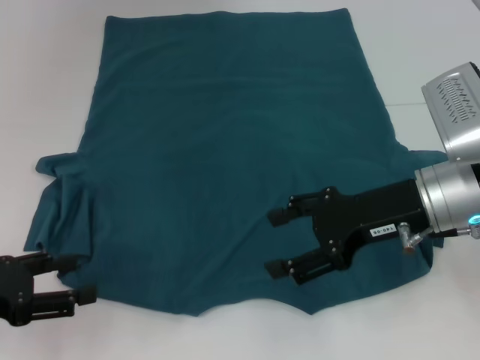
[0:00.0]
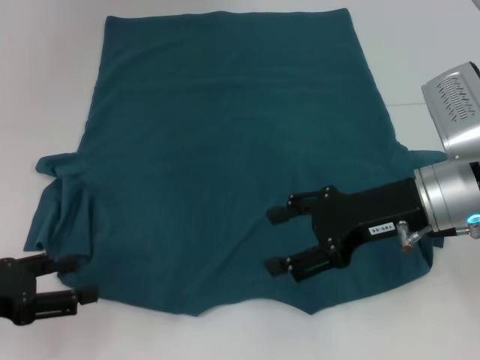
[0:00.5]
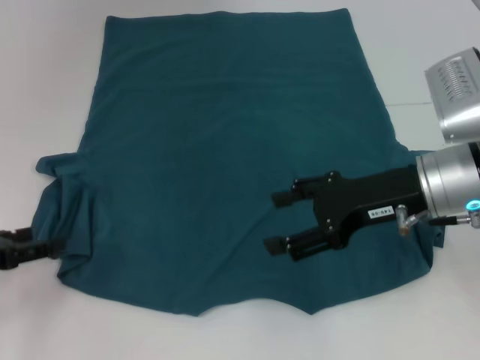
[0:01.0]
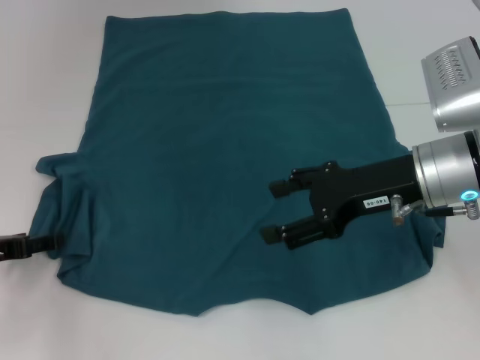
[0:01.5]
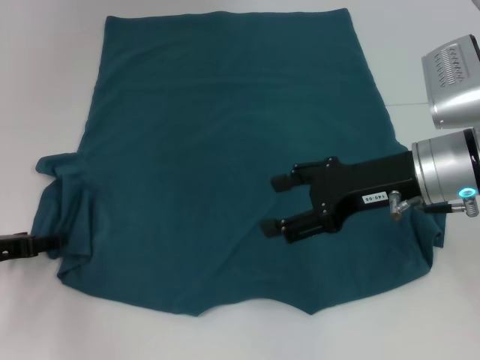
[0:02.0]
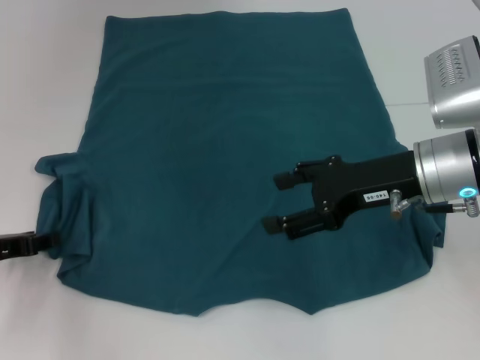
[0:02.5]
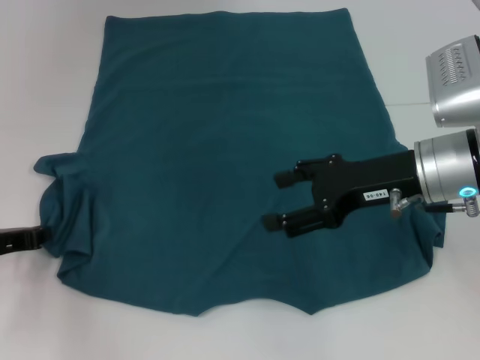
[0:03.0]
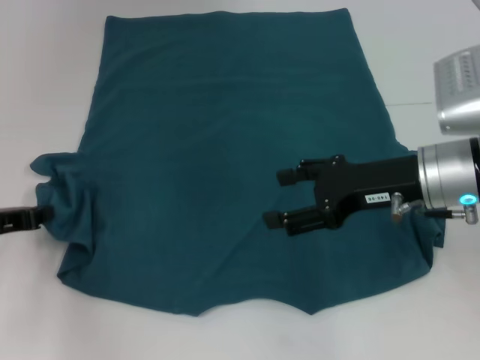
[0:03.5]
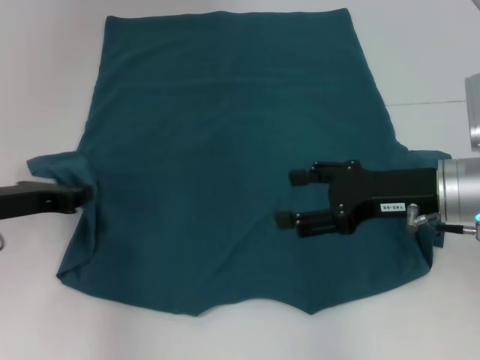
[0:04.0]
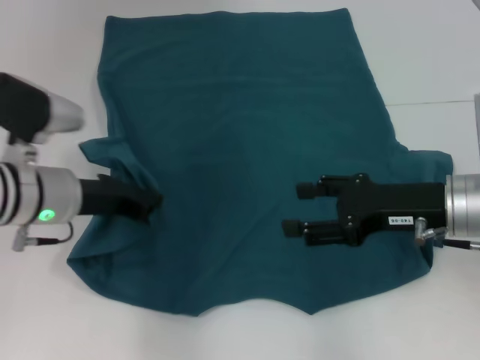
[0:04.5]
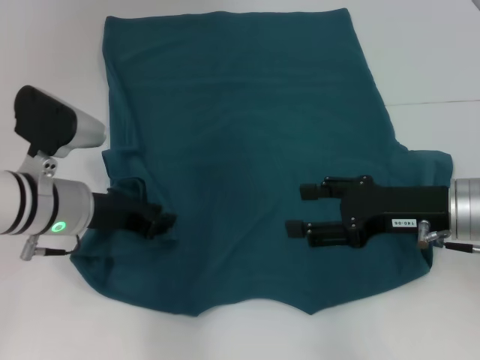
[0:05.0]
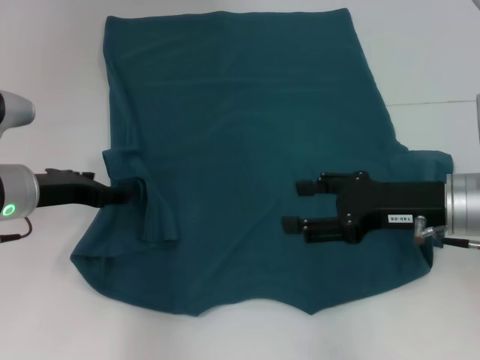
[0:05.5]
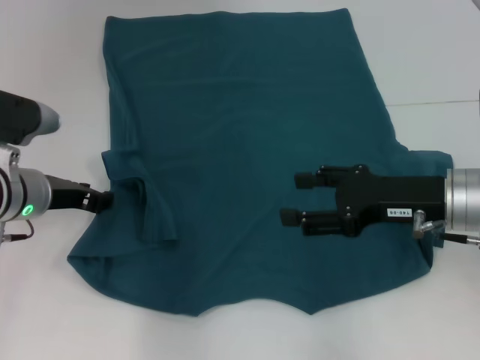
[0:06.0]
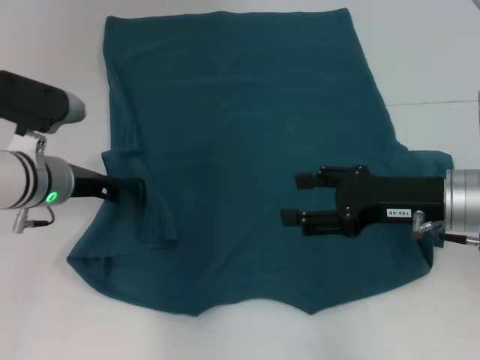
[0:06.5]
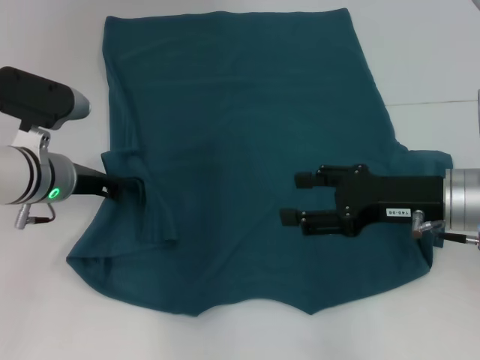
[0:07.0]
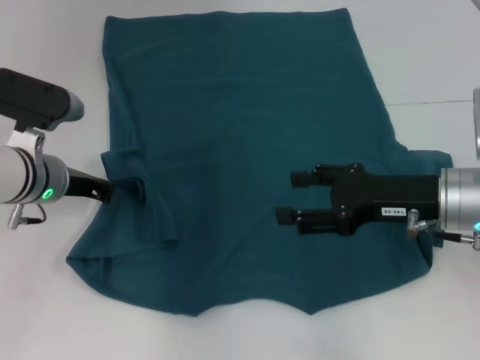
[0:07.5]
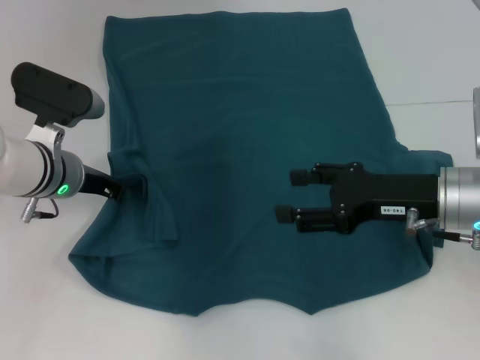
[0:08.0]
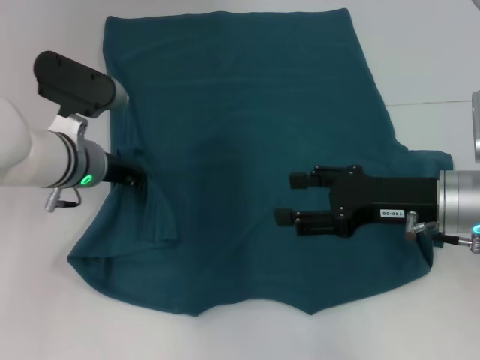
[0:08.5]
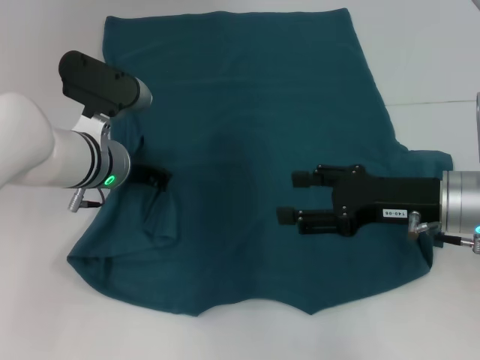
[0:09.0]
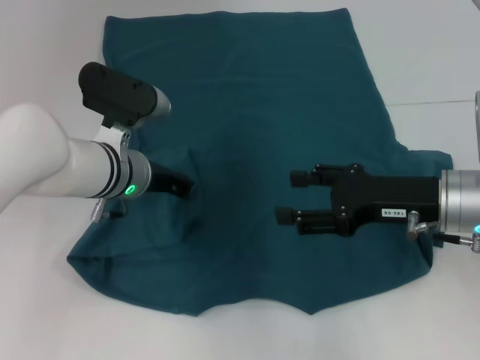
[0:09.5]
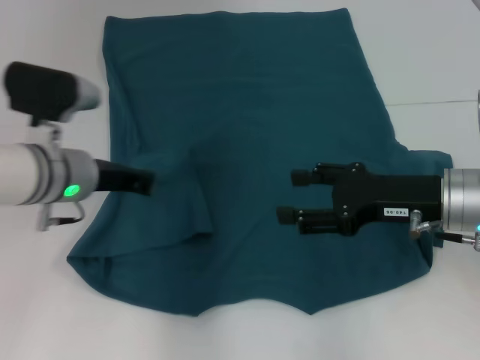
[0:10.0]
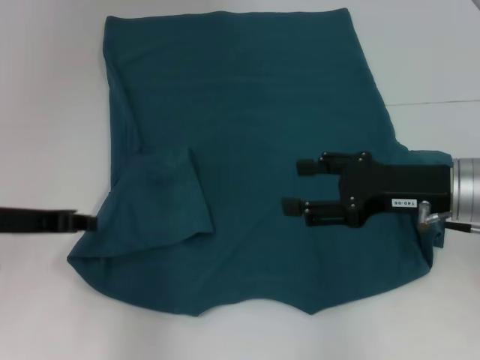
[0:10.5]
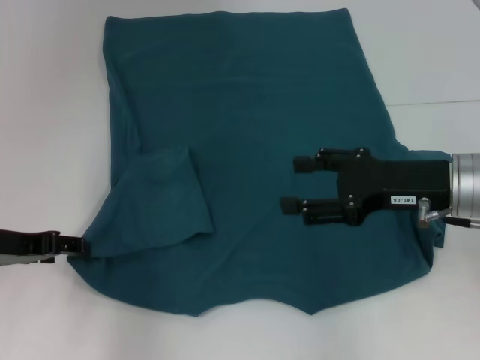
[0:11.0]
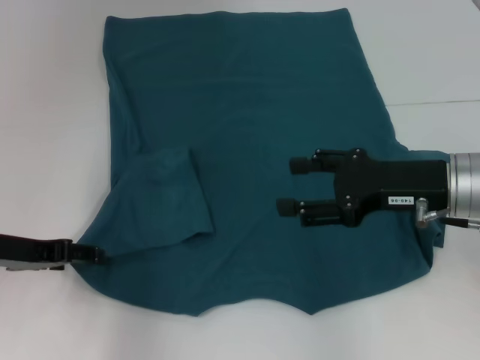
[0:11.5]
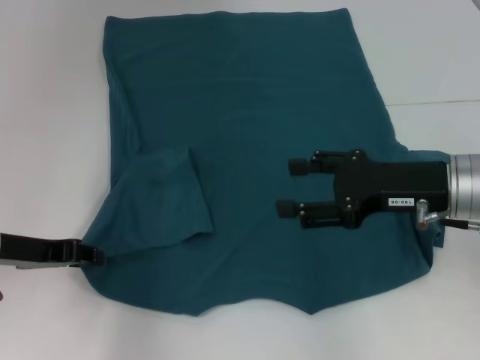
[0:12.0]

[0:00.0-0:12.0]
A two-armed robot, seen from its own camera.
Step, 0:00.0 to 0:09.5: Fold the bottom left sleeve with your left hand.
0:00.0 to 0:02.0: The left gripper travels forward by approximately 5 cm.
0:02.0 to 0:04.0: The left gripper is displaced upward by roughly 5 cm, and closes up.
0:04.0 to 0:06.0: The left gripper ends up some 5 cm from where it was, and opens its fingers.
0:06.0 to 0:08.0: The left gripper closes up.
0:10.0 to 0:12.0: The left gripper travels to the left and backward by roughly 10 cm, and opens its fingers.

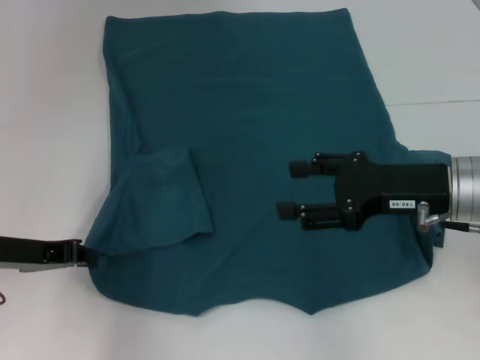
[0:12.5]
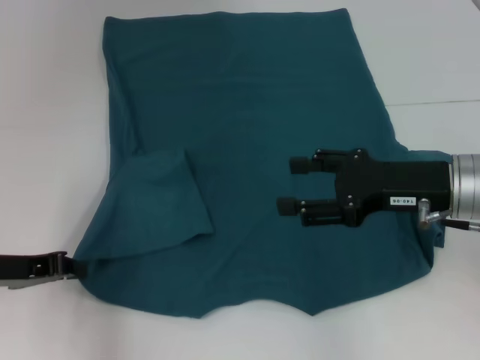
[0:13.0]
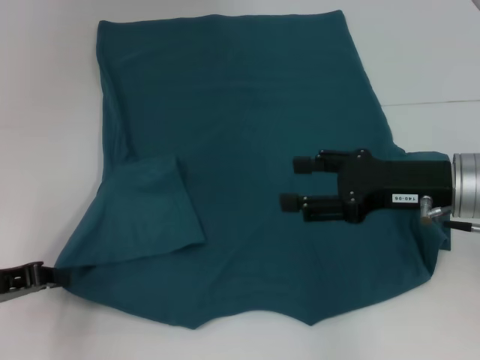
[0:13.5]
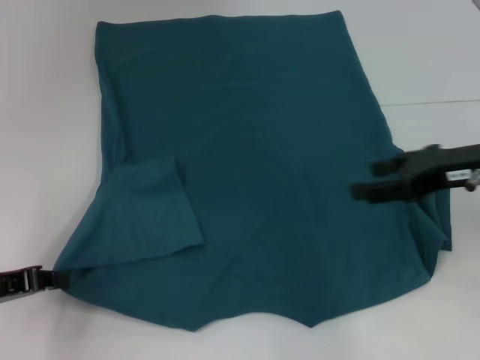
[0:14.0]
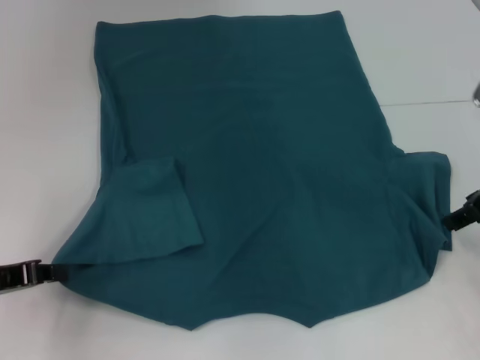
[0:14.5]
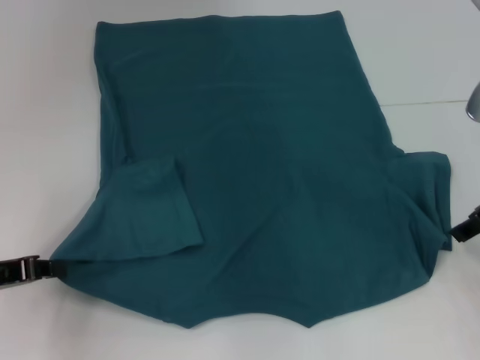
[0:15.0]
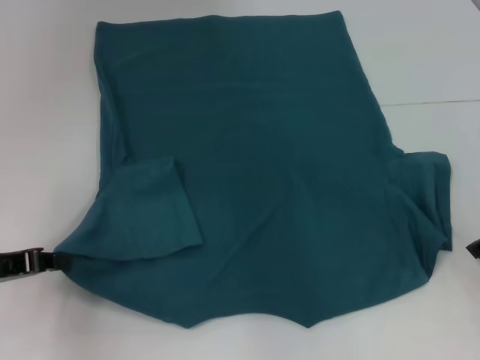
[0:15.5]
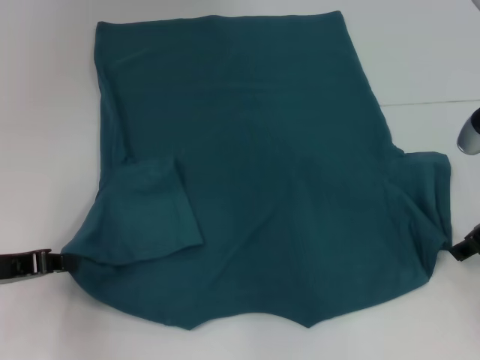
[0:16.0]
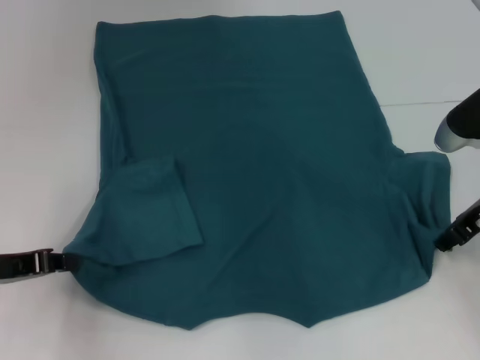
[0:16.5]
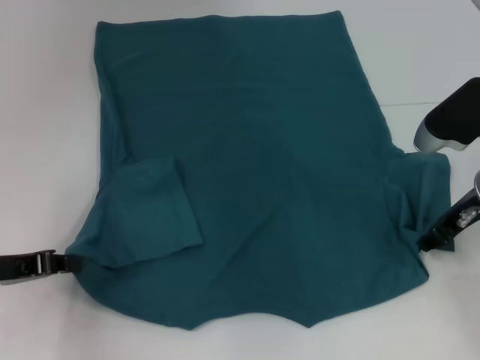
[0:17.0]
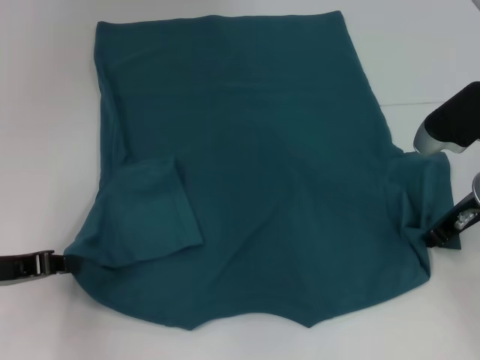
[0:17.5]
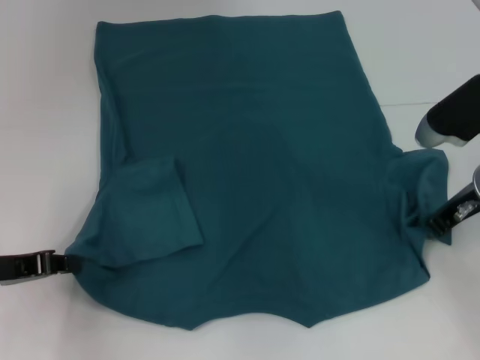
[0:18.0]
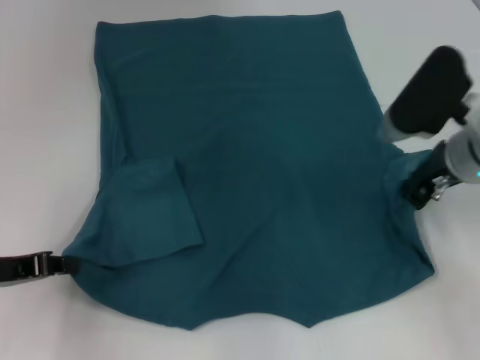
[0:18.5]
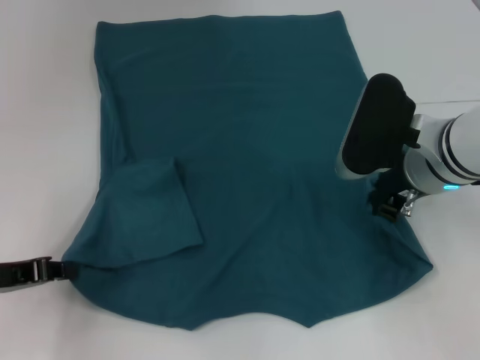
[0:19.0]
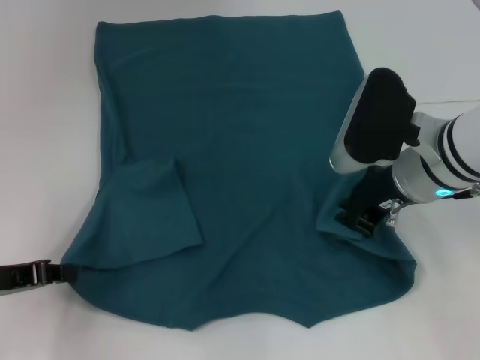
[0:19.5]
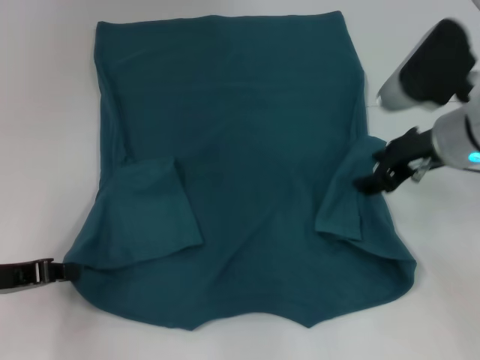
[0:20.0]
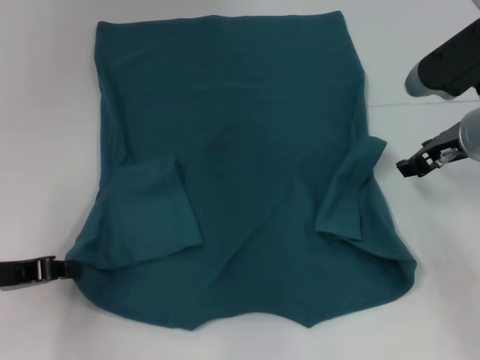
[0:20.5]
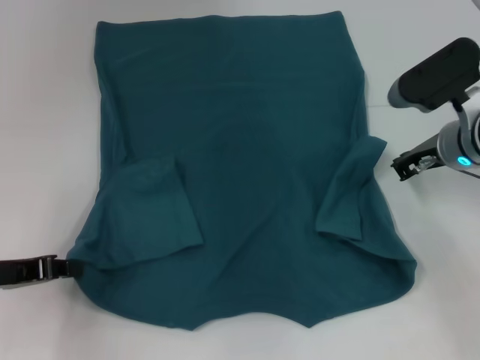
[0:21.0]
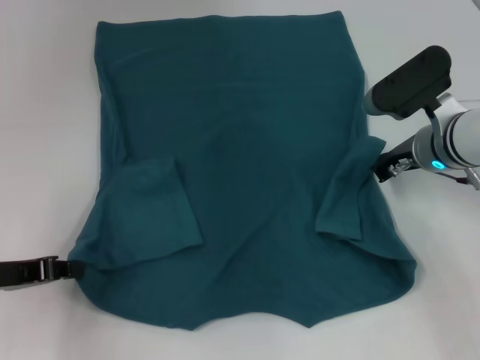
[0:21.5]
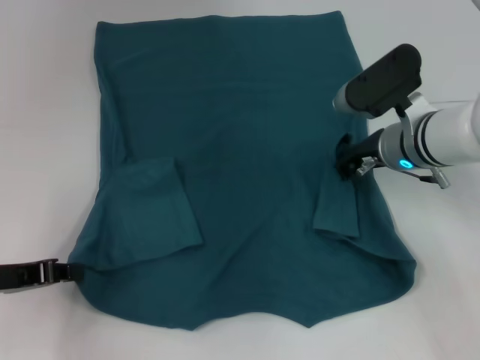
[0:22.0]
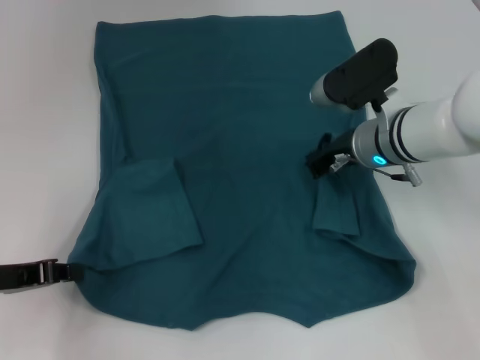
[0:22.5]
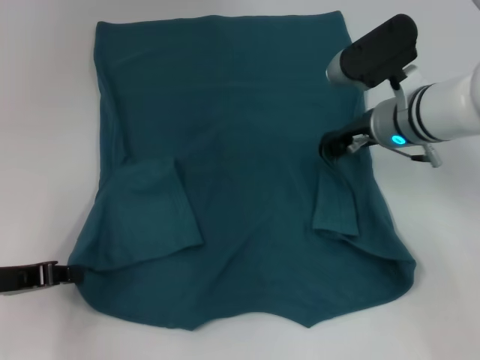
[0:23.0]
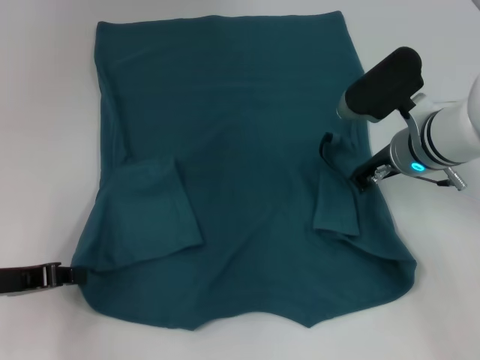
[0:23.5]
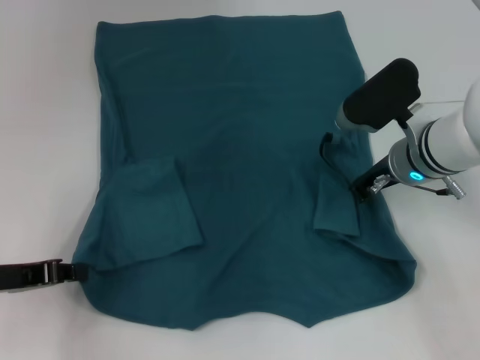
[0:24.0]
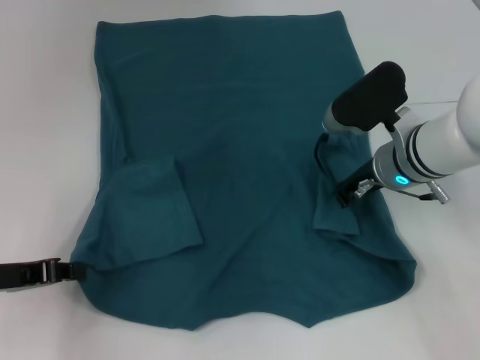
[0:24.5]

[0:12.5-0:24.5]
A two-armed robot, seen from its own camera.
0:12.5 to 0:14.5: The right gripper shifts some 5 cm to the right; the left gripper changes place by about 5 cm.
0:14.5 to 0:16.5: The right gripper is displaced downward by about 5 cm.
0:16.5 to 0:18.5: The right gripper is displaced to the left by about 5 cm, and closes.
0:18.5 to 0:20.5: The right gripper goes to the left and returns, roughly 5 cm each way, and opens up.
0:20.5 to 0:22.5: The right gripper goes about 10 cm to the left, and closes up.
0:22.5 to 0:24.5: There are only small adjustments of the grippers.

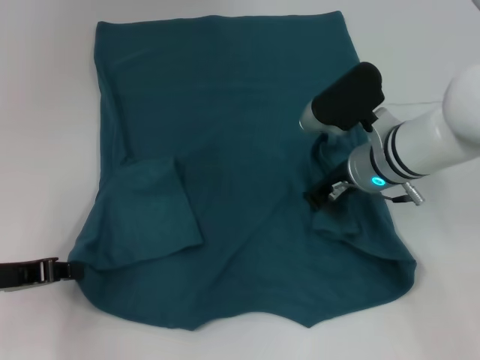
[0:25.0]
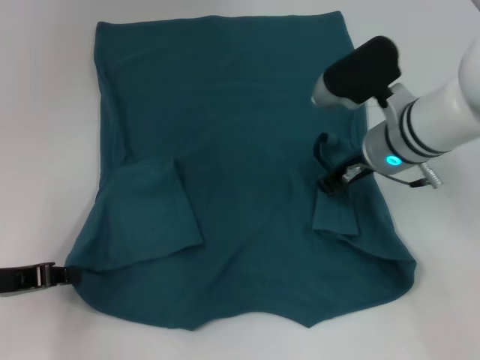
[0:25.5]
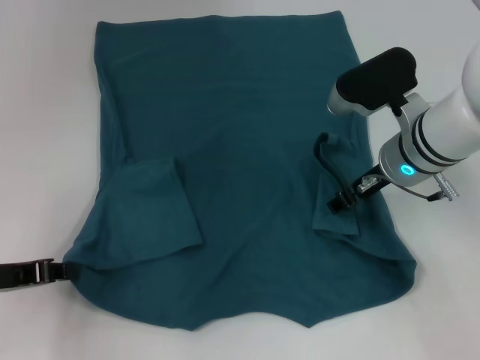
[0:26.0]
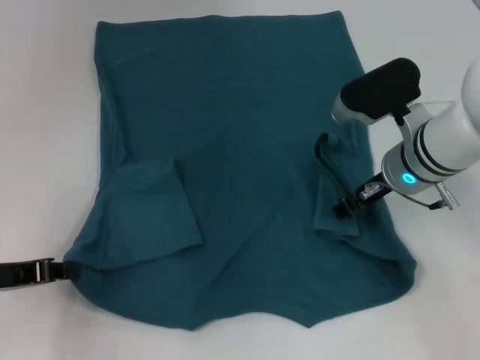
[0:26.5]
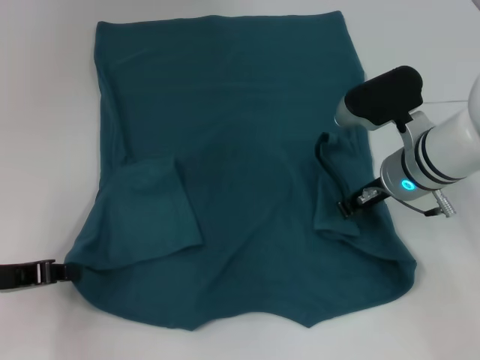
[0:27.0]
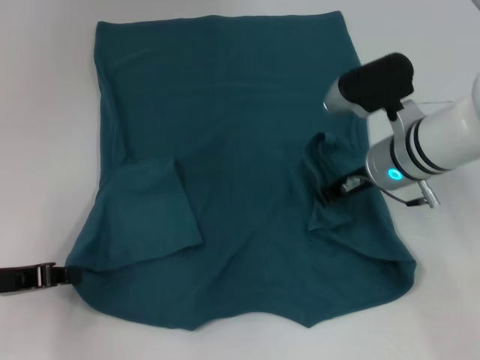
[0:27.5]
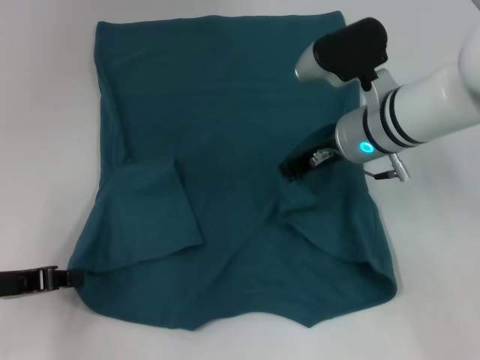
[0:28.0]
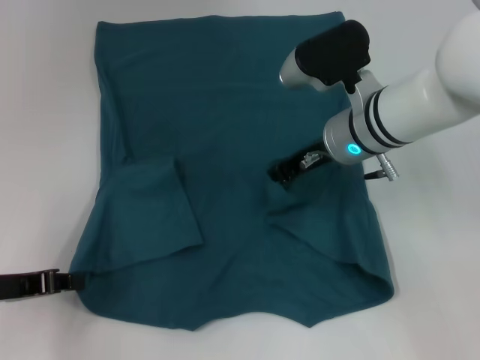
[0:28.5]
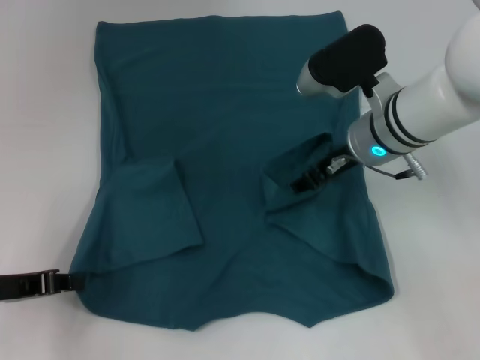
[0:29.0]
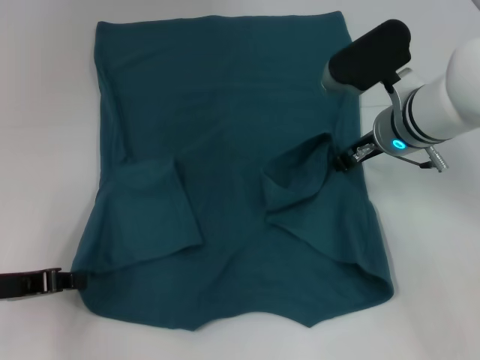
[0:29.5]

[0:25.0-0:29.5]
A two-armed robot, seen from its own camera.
0:25.0 to 0:27.0: The right gripper opens and closes again.
0:27.0 to 0:29.5: The right gripper opens.
